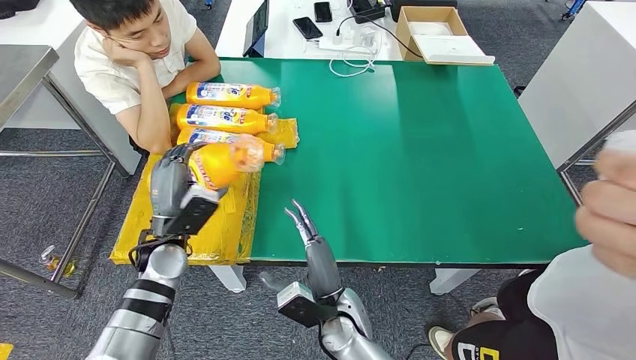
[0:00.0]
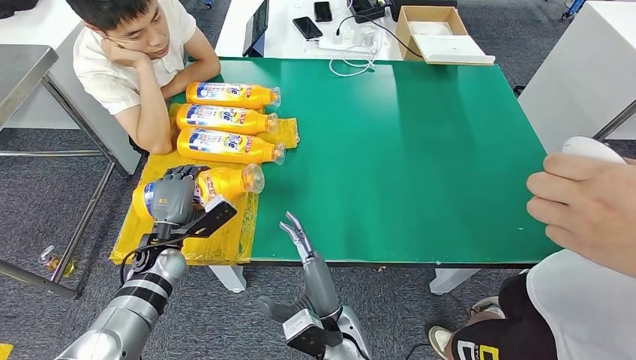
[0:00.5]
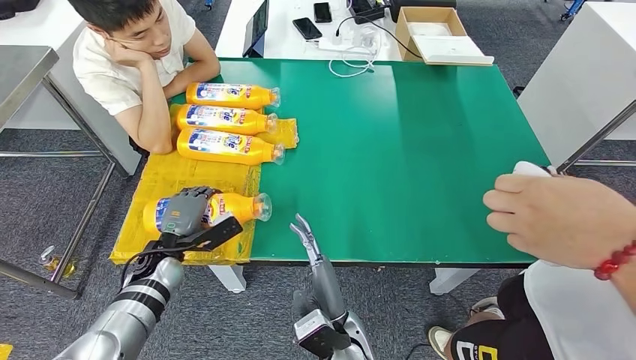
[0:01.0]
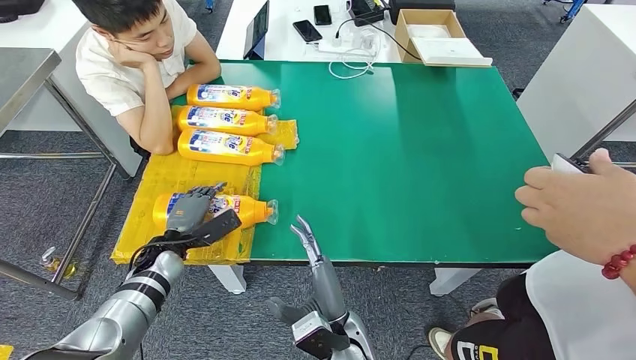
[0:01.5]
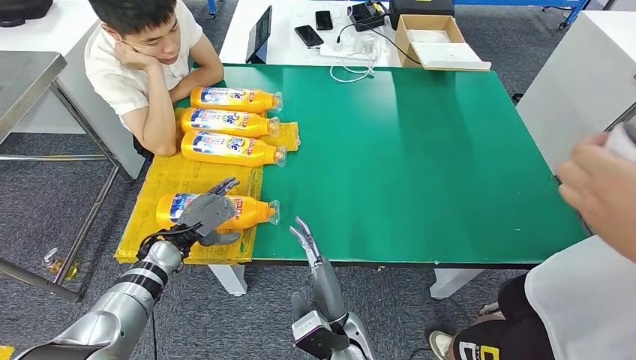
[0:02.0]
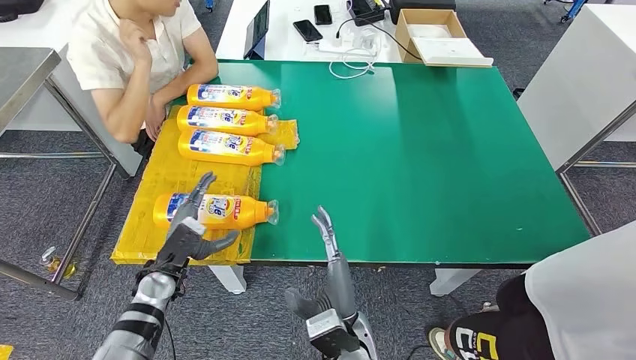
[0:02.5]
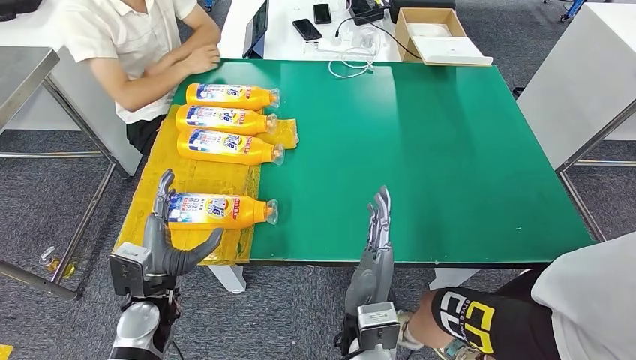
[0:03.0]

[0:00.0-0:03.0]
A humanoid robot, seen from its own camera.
Step, 0:00.0 to 0:03.0: Flip the fast-moving consumer goods bottle to the front side.
